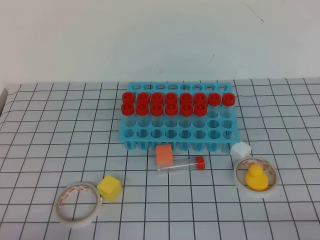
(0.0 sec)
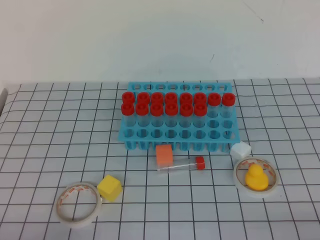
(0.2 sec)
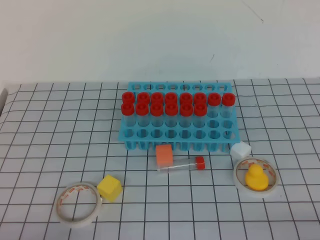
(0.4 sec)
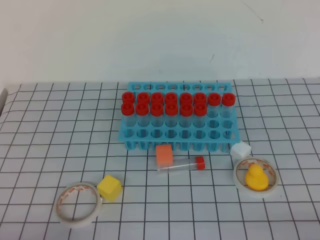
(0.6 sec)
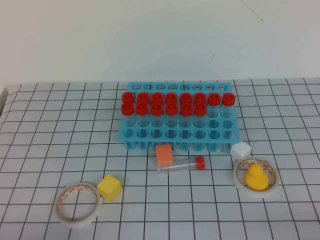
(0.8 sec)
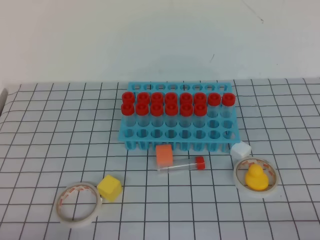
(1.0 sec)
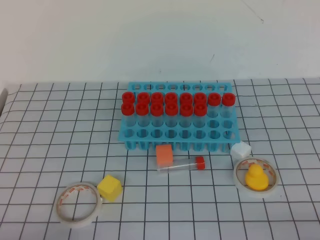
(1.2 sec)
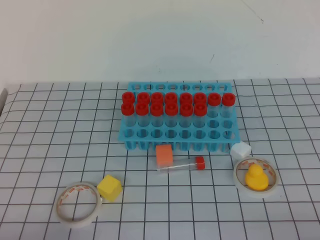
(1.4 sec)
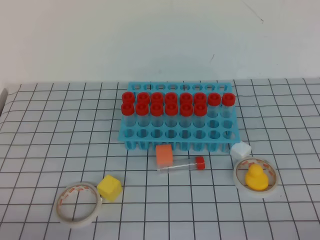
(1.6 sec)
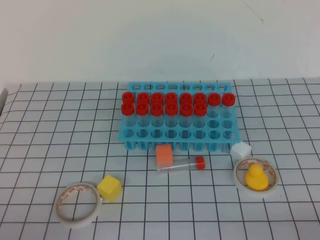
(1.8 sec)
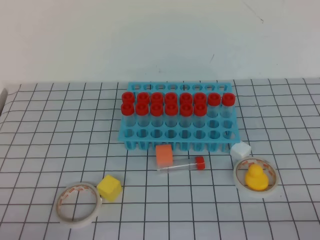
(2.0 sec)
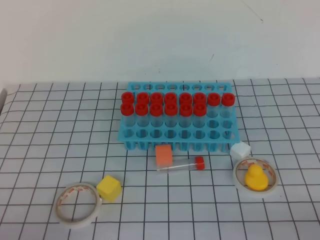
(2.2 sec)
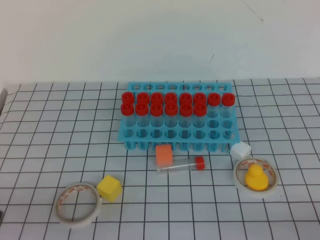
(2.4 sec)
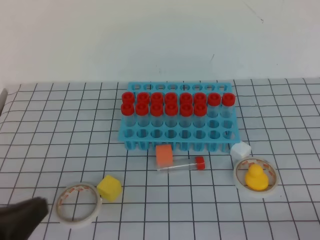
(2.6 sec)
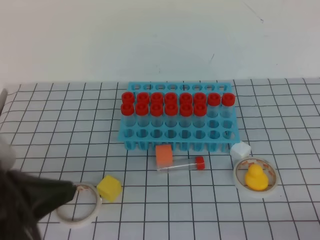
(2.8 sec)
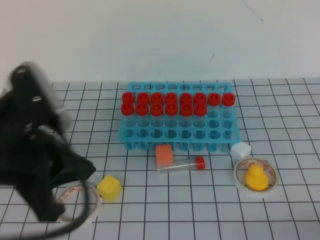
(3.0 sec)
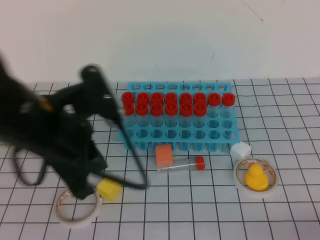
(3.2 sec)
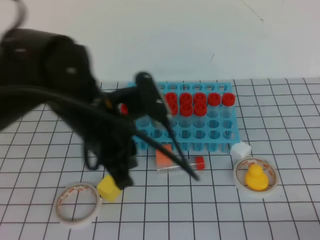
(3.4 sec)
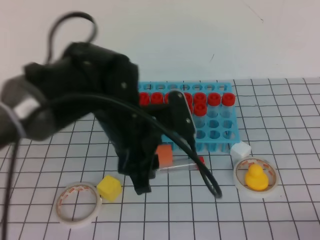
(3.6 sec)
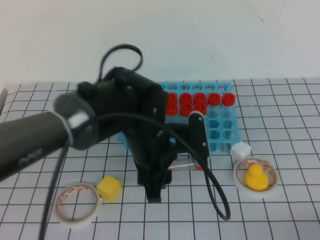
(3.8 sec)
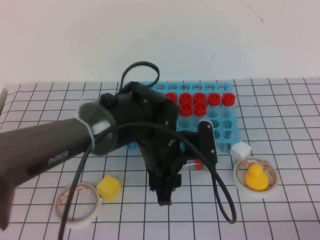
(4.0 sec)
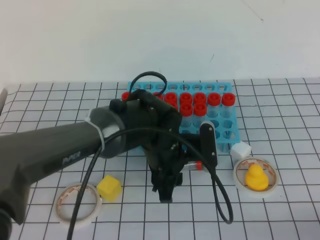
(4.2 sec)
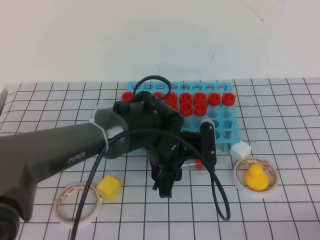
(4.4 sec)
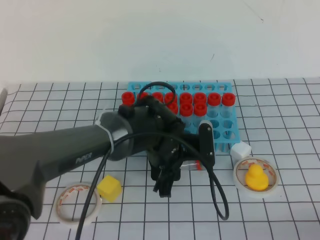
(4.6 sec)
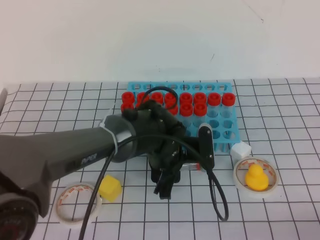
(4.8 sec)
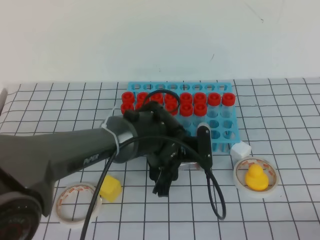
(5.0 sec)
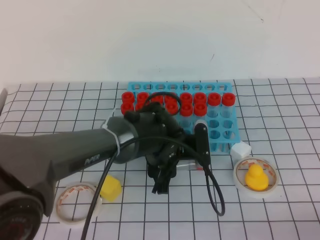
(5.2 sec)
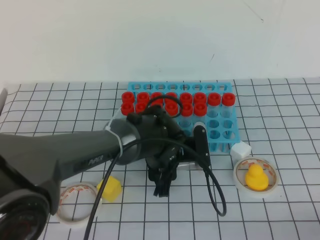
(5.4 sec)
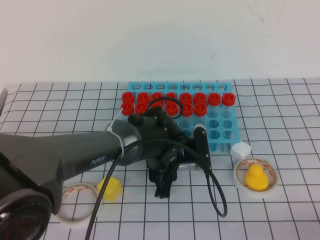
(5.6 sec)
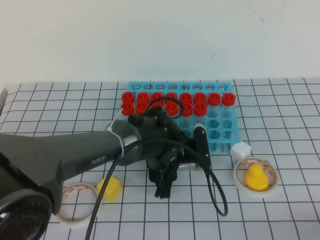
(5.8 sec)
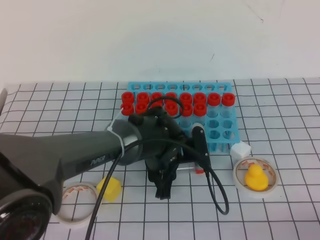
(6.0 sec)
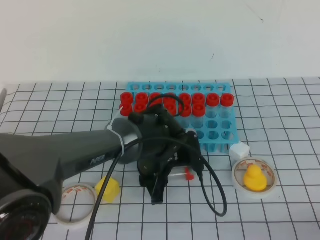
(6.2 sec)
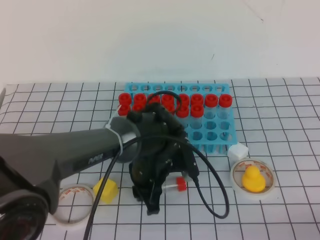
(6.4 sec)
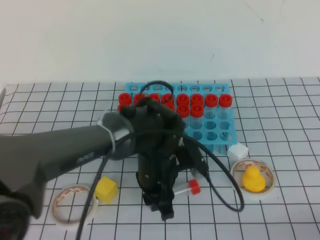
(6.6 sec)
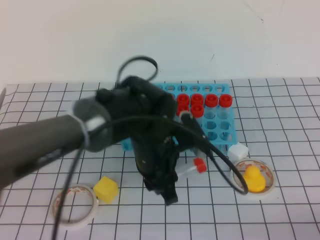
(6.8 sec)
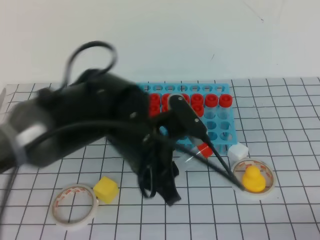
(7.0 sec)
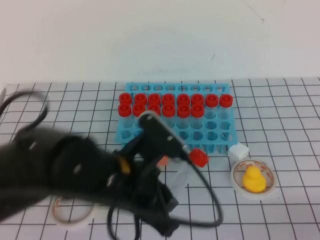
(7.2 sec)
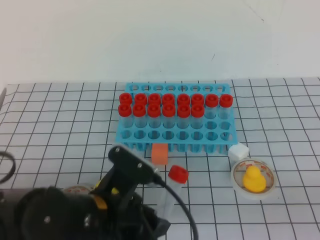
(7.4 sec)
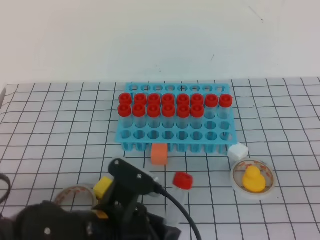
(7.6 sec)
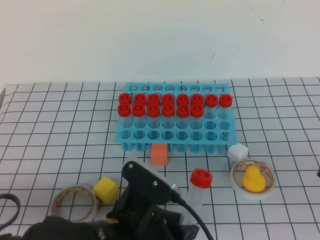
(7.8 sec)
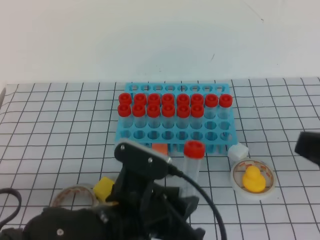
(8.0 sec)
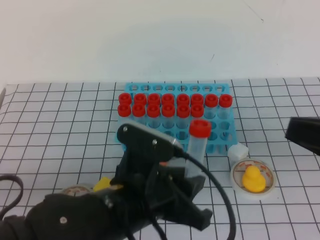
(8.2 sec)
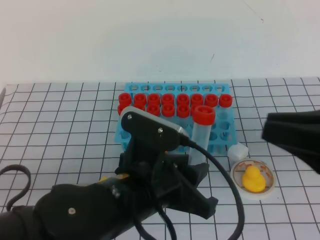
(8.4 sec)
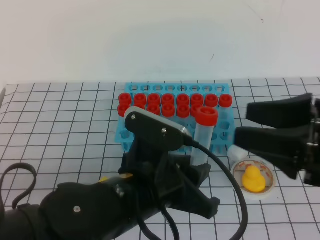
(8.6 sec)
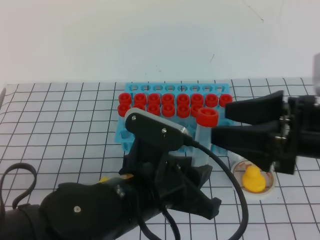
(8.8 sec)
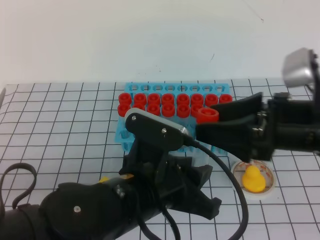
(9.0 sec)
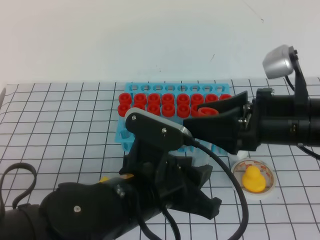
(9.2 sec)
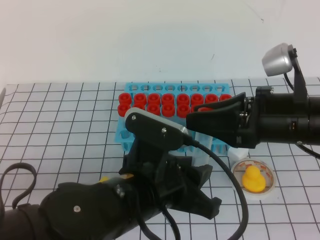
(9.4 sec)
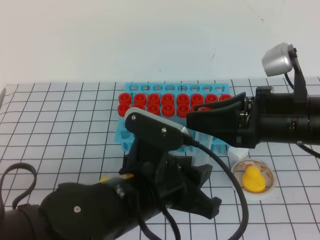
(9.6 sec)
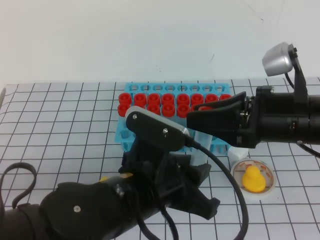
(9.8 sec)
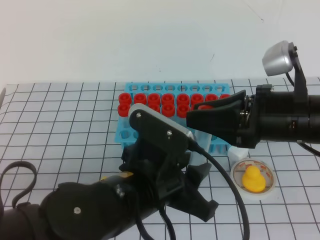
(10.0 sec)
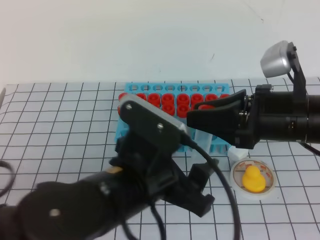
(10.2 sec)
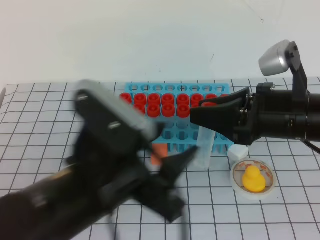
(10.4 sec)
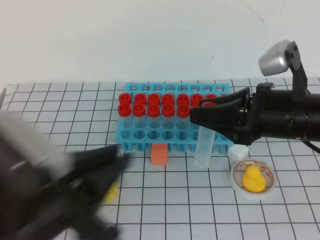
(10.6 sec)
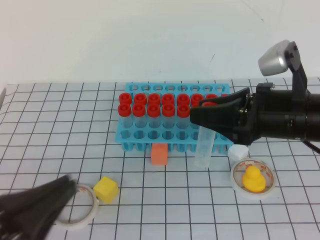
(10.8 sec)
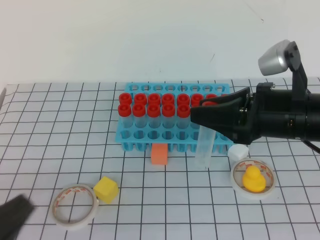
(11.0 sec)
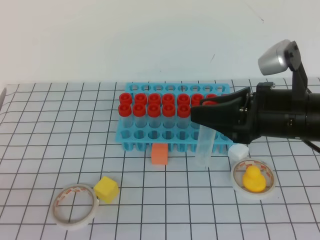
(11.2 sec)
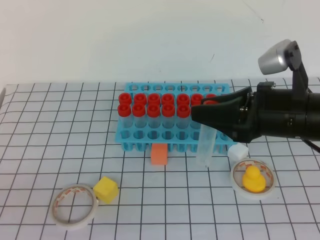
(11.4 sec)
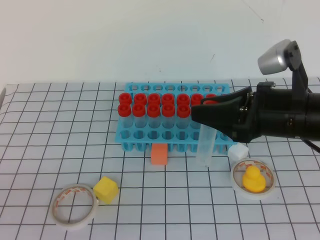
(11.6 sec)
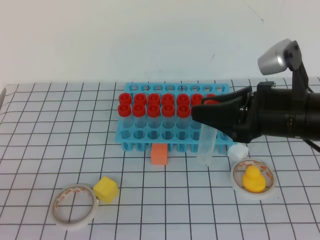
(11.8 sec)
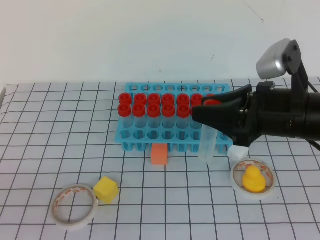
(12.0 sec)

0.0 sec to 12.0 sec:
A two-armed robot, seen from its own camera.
1.6 sec to 3.0 sec: The left gripper moves upward, forward and to the right, some 20 cm.
3.0 sec to 4.4 sec: The left gripper moves to the right, forward and downward, approximately 30 cm, and opens.
4.4 sec to 6.0 sec: The grippers make only small movements.
6.0 sec to 7.6 sec: The right gripper heads upward, covering approximately 10 cm. The left gripper heads backward, covering about 15 cm.
7.6 sec to 9.0 sec: The left gripper moves approximately 5 cm, while the right gripper heads forward and to the left, covering approximately 20 cm, and opens.
9.0 sec to 10.4 sec: The left gripper shifts by about 5 cm; the right gripper closes.
10.4 sec to 12.0 sec: The left gripper goes roughly 20 cm to the left and backward, and closes.

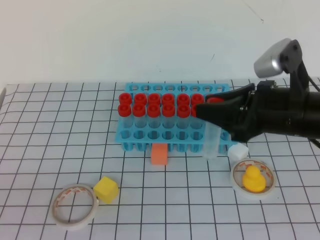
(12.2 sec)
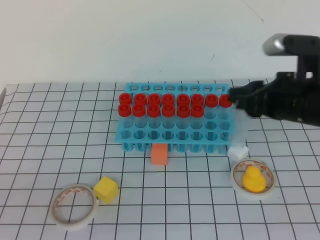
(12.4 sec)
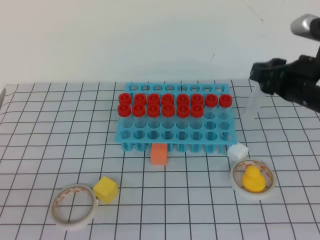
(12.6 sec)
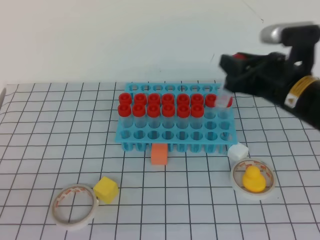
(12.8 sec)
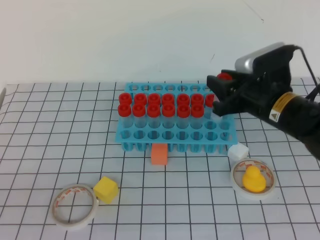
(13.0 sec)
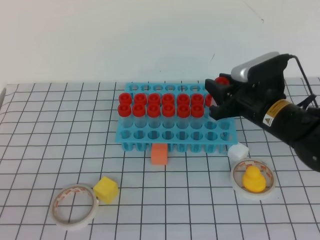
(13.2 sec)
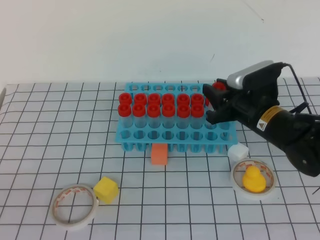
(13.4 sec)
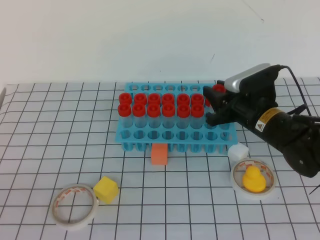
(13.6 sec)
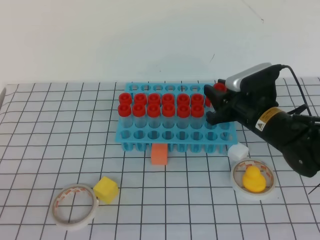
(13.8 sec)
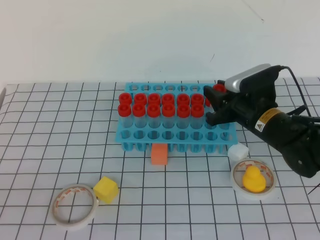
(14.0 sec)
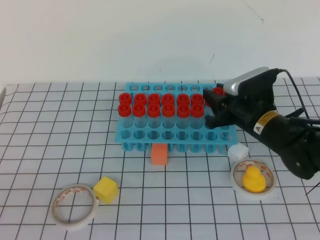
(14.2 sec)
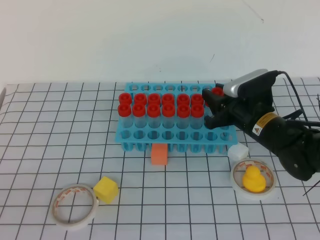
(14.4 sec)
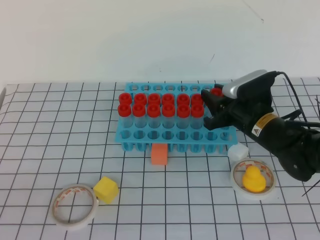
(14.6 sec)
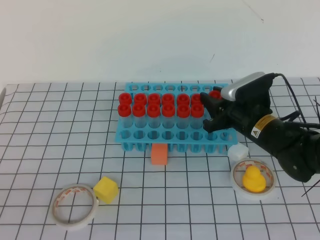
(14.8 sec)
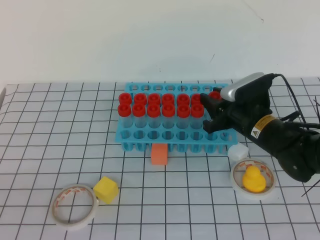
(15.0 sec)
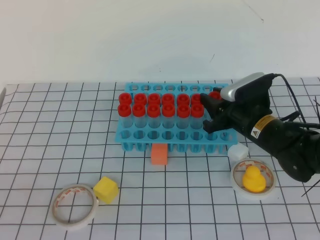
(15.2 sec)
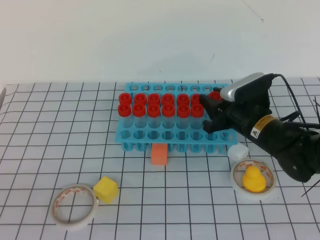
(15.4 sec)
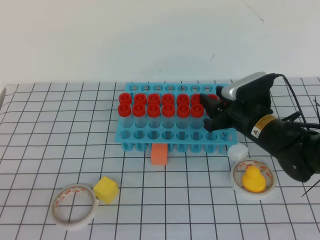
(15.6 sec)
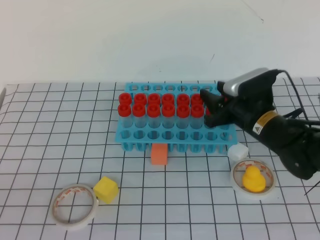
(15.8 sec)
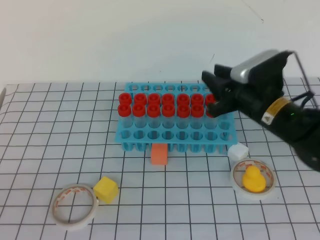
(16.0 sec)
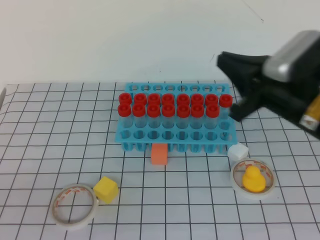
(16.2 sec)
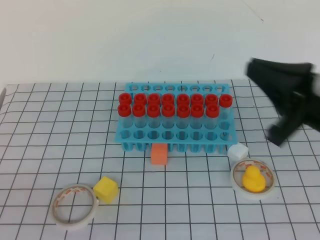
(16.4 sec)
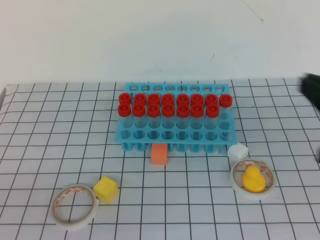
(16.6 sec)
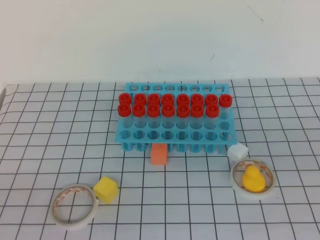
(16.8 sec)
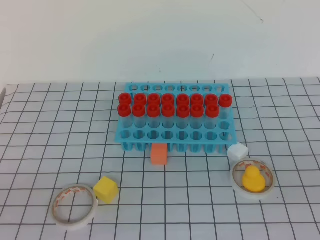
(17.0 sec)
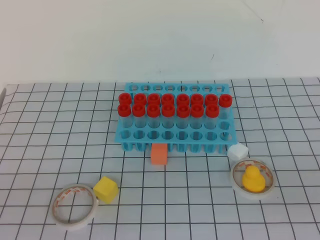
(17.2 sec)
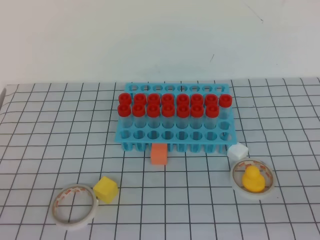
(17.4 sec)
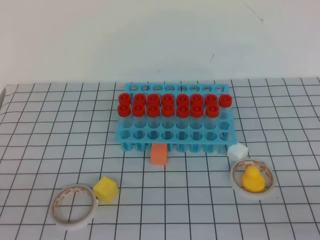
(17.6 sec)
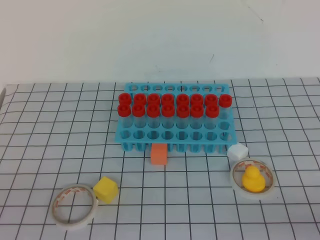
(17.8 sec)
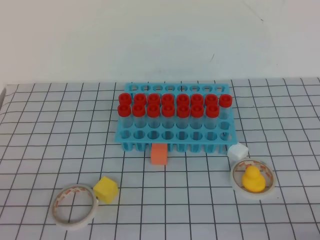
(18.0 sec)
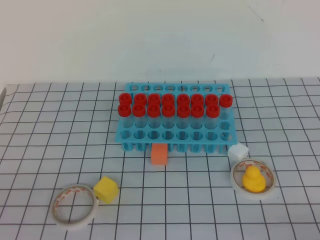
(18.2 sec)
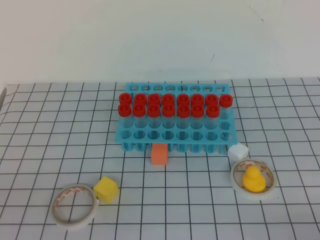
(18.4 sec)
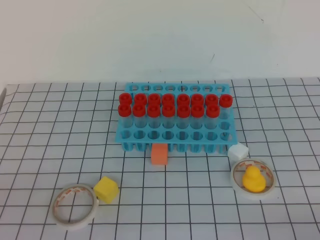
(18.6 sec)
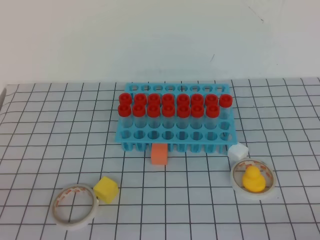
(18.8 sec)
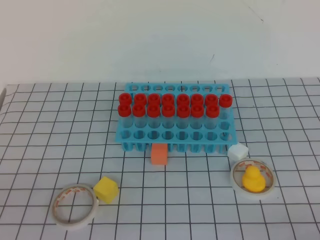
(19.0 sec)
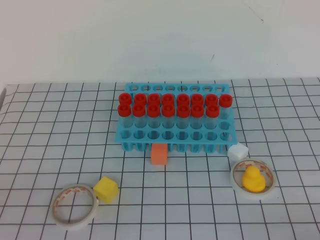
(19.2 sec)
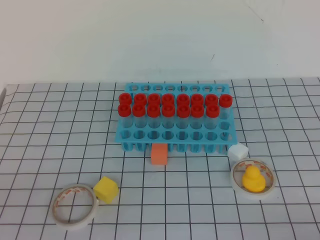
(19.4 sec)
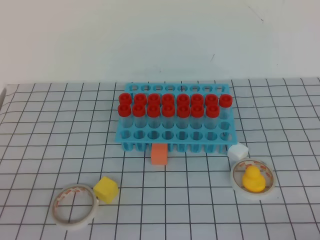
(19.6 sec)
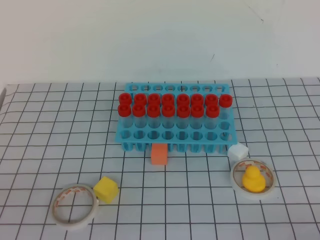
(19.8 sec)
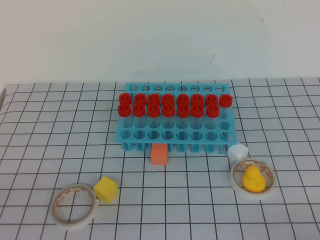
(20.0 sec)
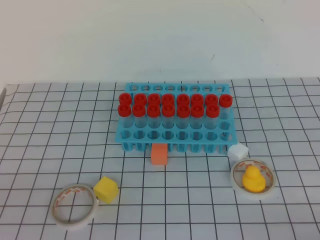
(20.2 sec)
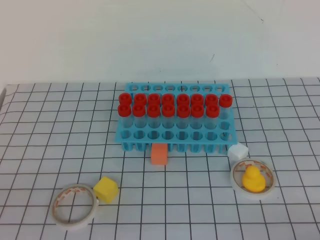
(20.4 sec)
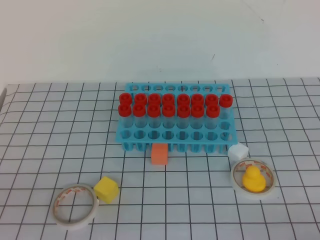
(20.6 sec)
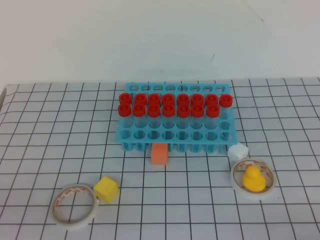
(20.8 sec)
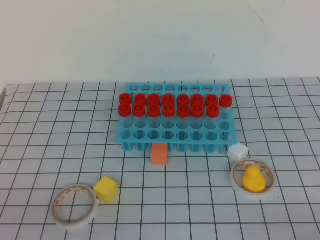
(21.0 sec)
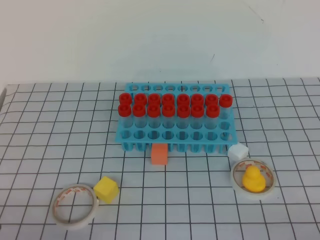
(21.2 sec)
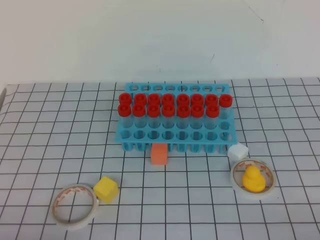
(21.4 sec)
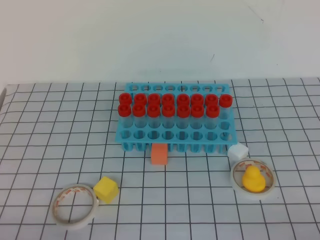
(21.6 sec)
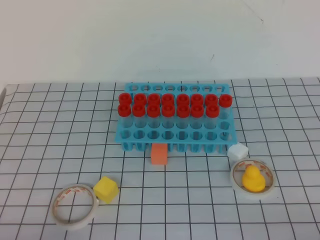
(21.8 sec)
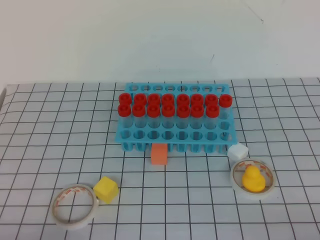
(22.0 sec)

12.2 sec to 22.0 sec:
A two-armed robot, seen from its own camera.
12.2 sec to 13.6 sec: The right gripper travels downward and forward by about 15 cm.
13.6 sec to 15.0 sec: The grippers make only small movements.
15.0 sec to 16.4 sec: The right gripper shifts about 20 cm upward and backward, and closes up.
16.4 sec to 17.8 sec: The right gripper heads backward, to the right and downward, covering roughly 25 cm.
